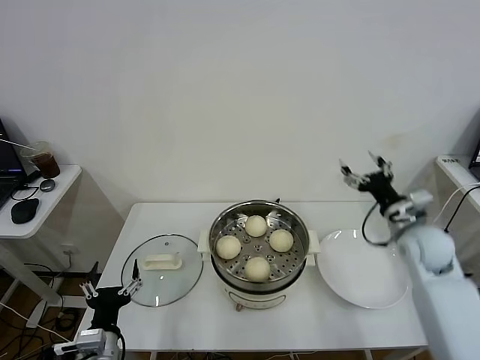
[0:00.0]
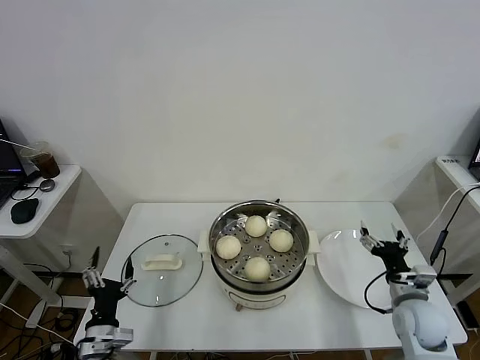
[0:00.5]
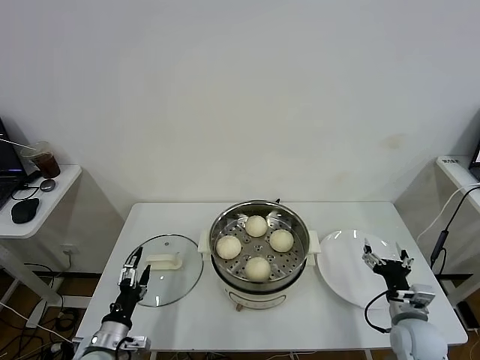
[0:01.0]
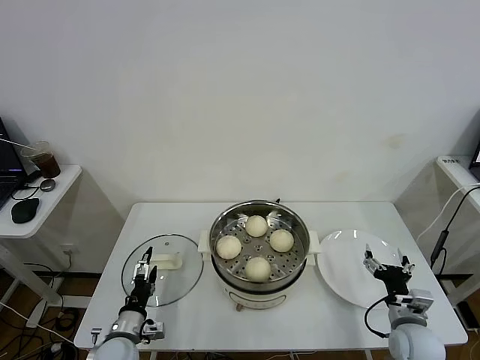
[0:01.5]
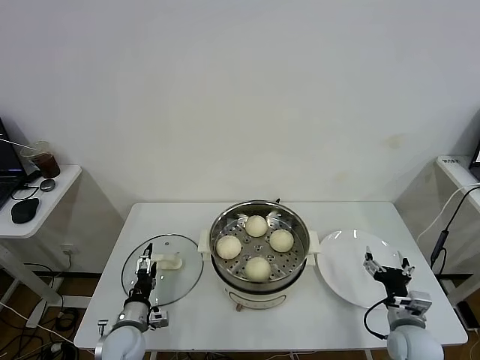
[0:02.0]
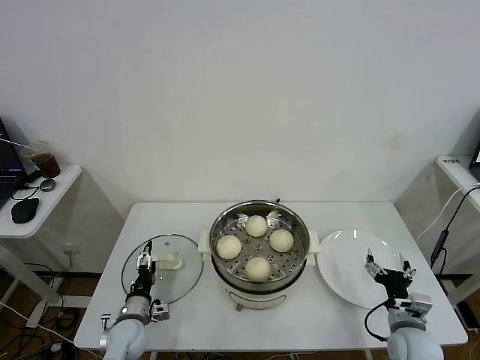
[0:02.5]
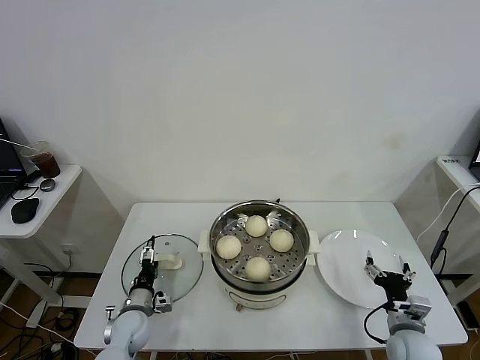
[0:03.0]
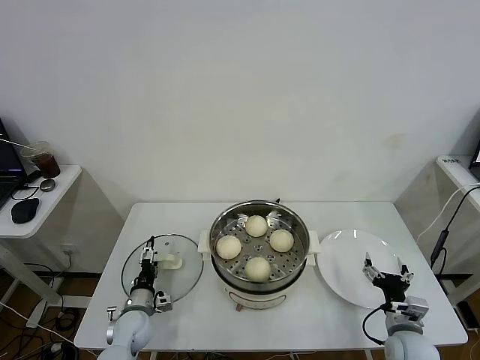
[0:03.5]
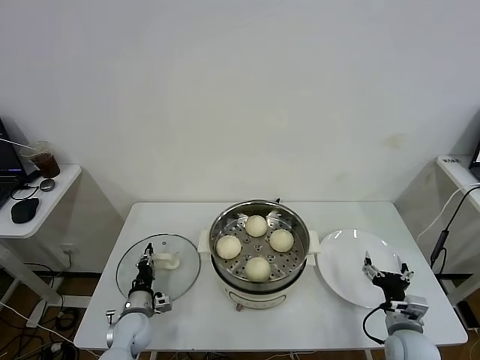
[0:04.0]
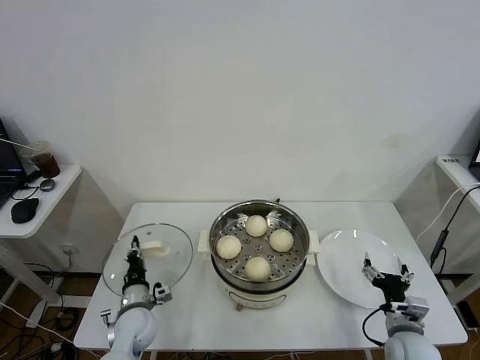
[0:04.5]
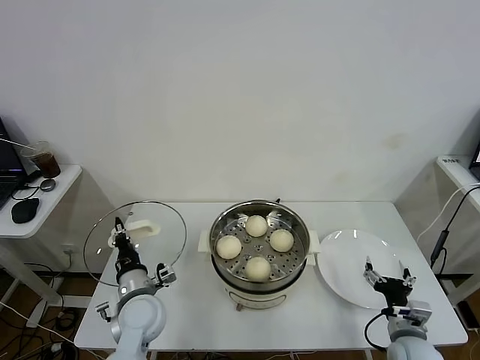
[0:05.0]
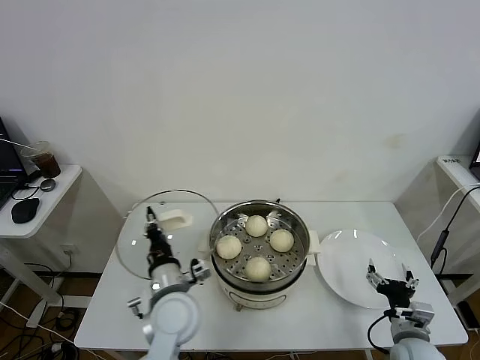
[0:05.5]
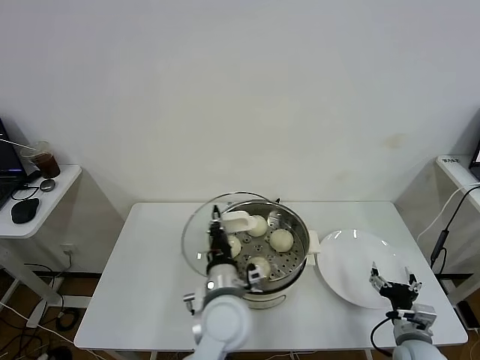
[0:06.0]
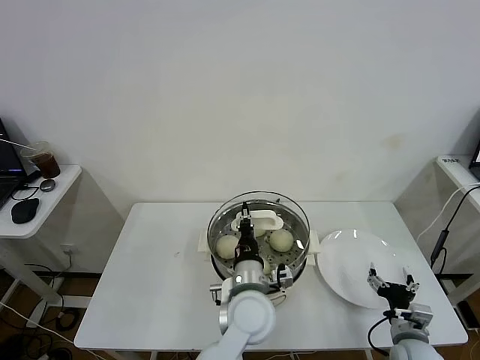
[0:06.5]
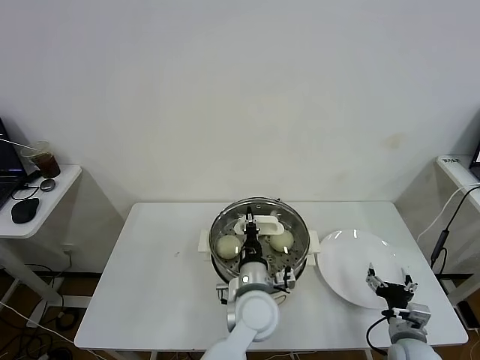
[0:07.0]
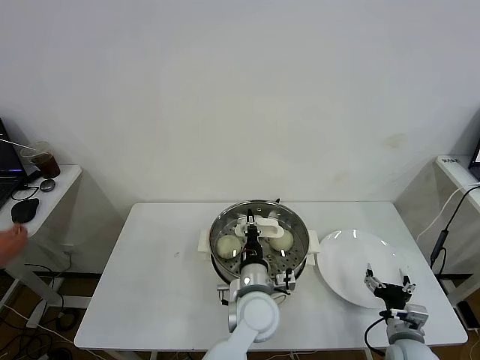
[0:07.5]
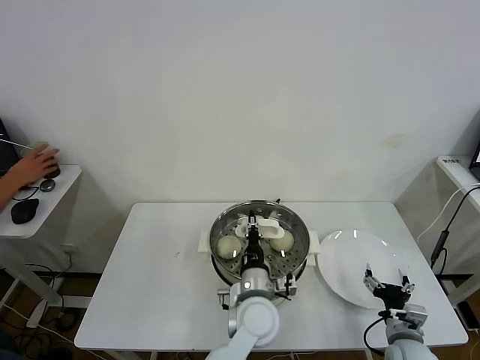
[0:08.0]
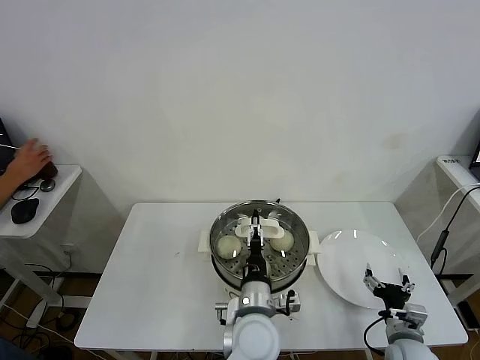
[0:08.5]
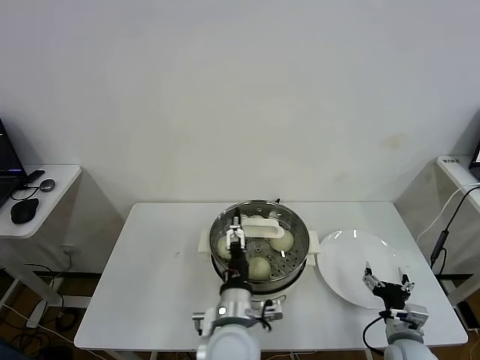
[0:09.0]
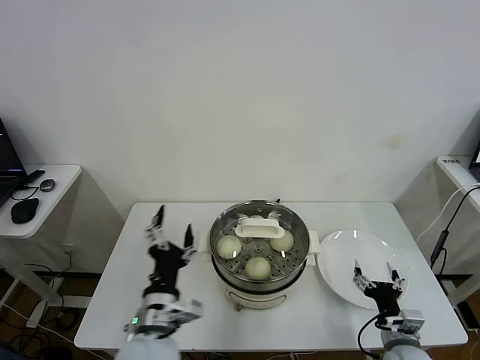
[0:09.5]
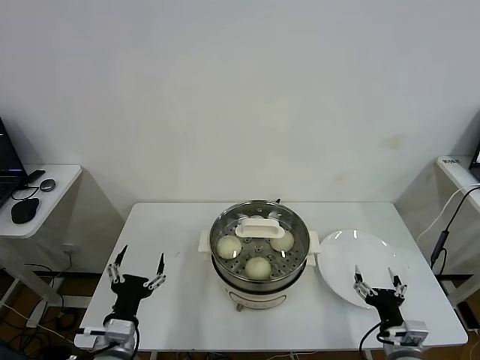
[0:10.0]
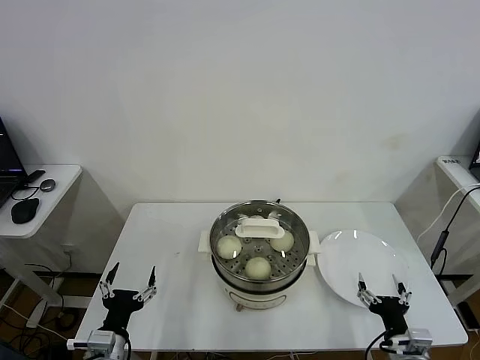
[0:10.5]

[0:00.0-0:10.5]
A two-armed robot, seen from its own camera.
Task of the whole recording: take steamed baozi put them in steamer.
Step, 0:00.0 to 0:04.0: Grasp the pot lid with left gripper.
Step, 0:04.5 to 0:08.5: Place the pot lid on the steamer with left gripper.
0:00.0 to 0:02.0: The right gripper heads backward and downward, covering roughly 20 cm. Meanwhile the left gripper heads downward and forward, covering roughly 15 cm.
0:02.0 to 0:04.0: The left gripper shifts by roughly 5 cm, and closes.
0:04.0 to 0:06.5: The left gripper goes approximately 35 cm to the right and upward.
0:06.5 to 0:08.5: The left gripper opens.
0:08.5 to 0:10.5: The left gripper goes roughly 30 cm to the left; the right gripper heads backward, covering roughly 5 cm.

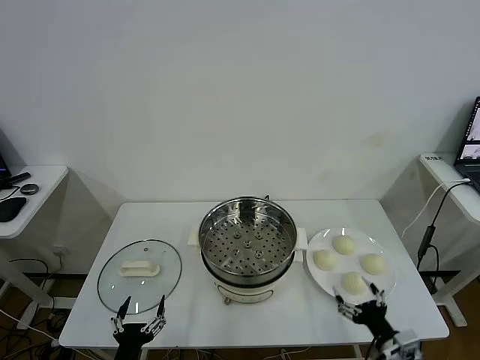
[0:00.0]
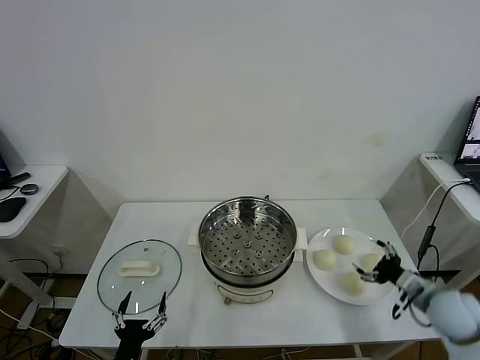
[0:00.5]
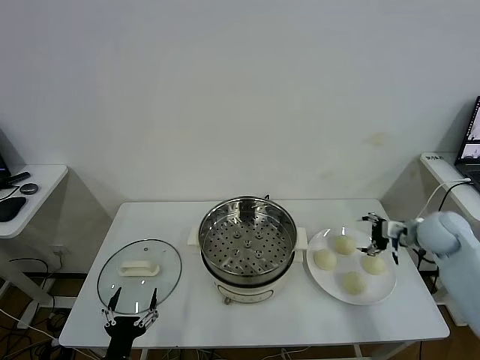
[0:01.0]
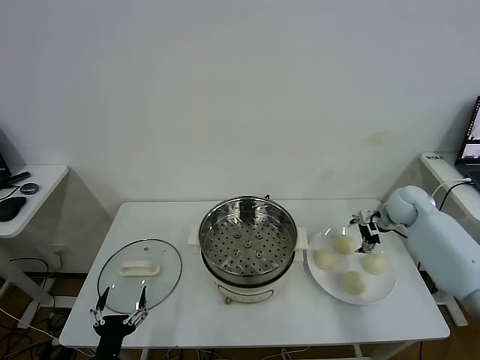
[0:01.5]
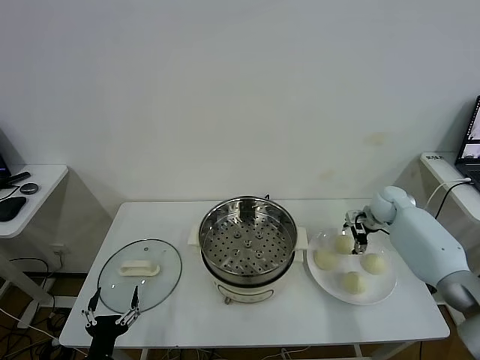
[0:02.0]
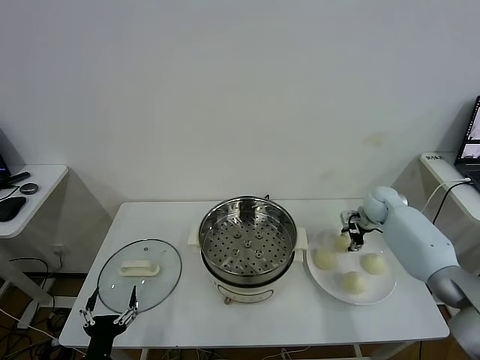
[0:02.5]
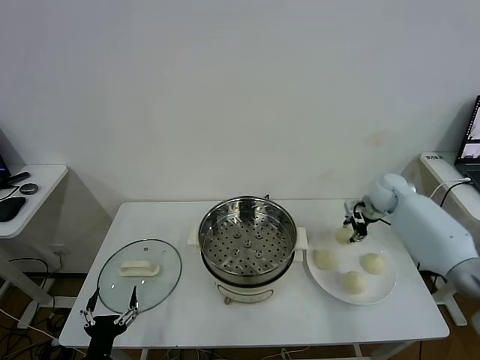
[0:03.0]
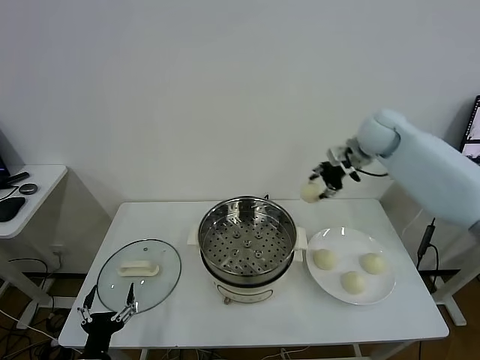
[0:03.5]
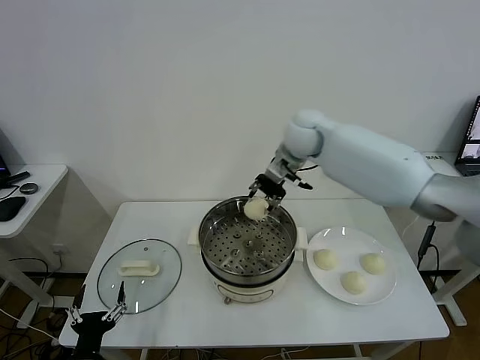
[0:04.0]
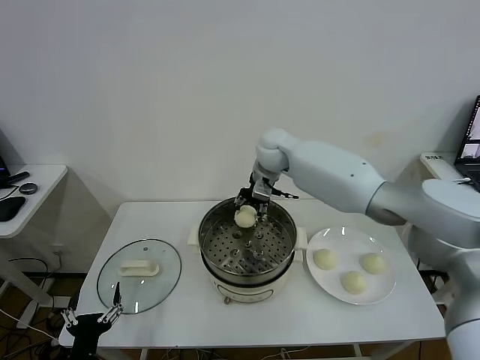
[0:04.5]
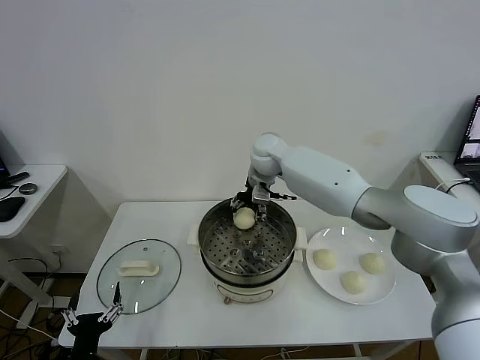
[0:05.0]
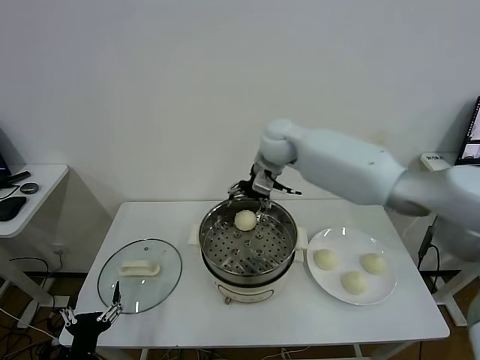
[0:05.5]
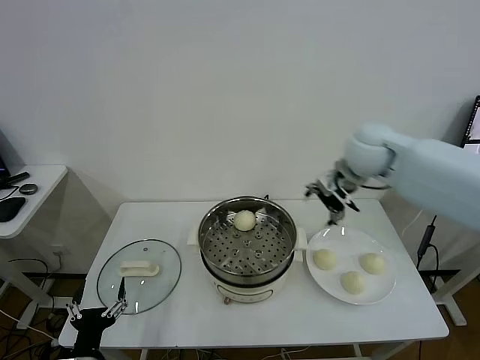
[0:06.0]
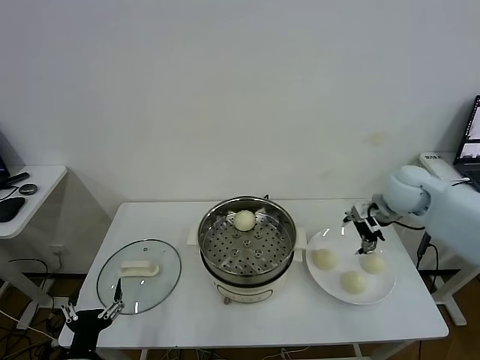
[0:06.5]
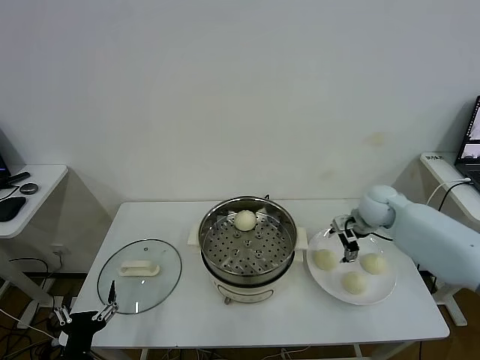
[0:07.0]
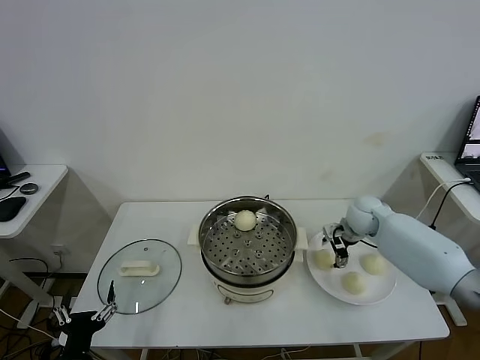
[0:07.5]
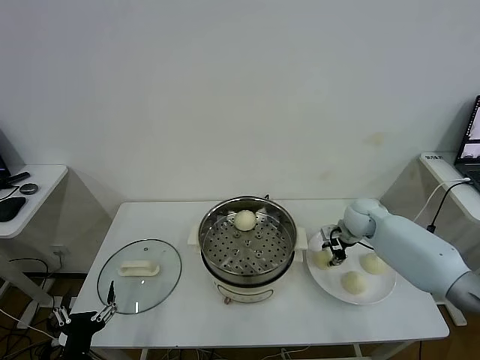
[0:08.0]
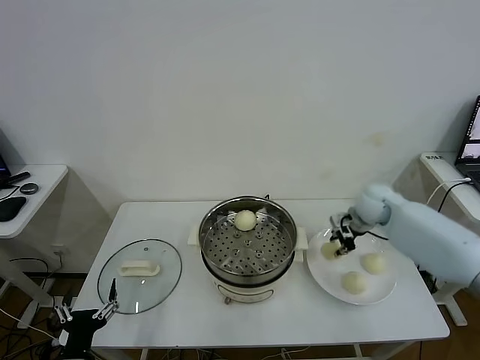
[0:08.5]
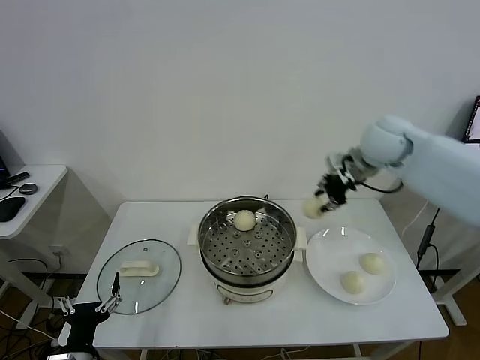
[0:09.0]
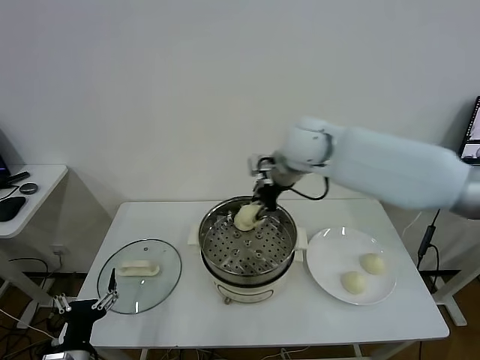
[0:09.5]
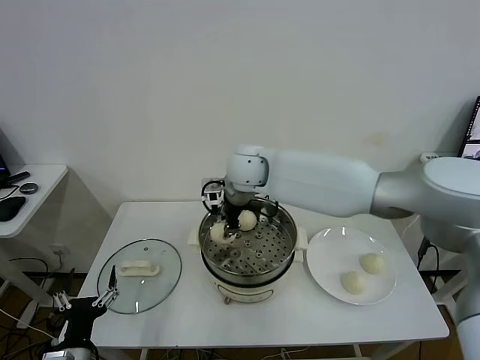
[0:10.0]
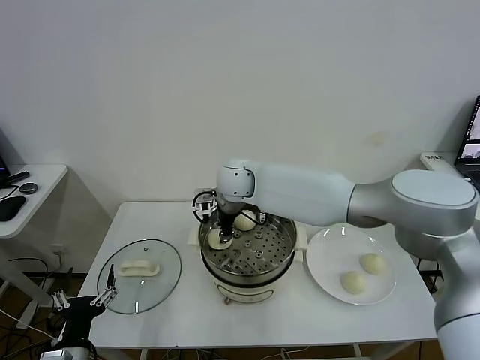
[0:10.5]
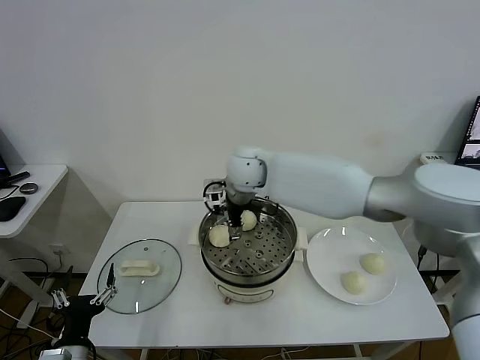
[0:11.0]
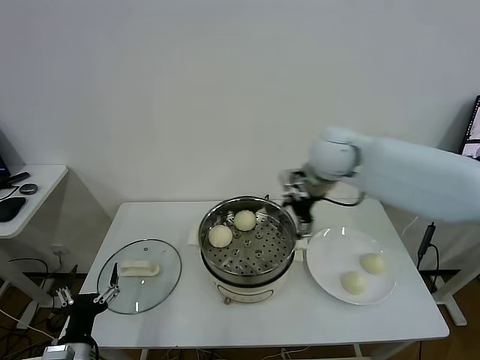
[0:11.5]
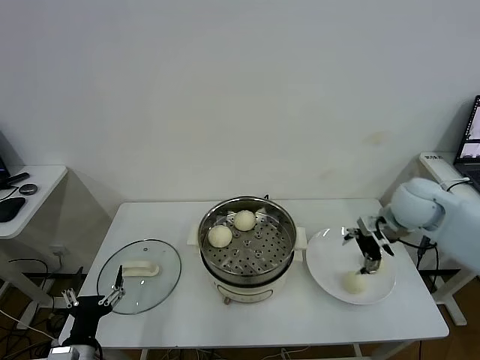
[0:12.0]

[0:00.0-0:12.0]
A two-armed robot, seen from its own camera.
Task of the whole recording: take steamed baozi put them in steamer.
Step, 0:00.0 to 0:02.5: Grasp the baozi in the plate with right gripper.
Step, 0:03.0 to 0:05.0: Place the baozi on the steamer with right gripper.
Step, 0:05.5 to 0:07.5: Grasp the baozi in the plate with right gripper.
Step, 0:08.0 to 0:11.0: Place the baozi on the steamer with right gripper.
0:02.0 to 0:04.0: The right gripper shifts approximately 35 cm to the left and upward, and closes its fingers.
0:04.0 to 0:06.0: The right gripper shifts approximately 20 cm to the right and backward, and opens.
0:06.0 to 0:08.0: The right gripper travels downward by about 20 cm, and closes its fingers.
0:08.0 to 0:10.0: The right gripper goes some 35 cm to the left and upward.
0:10.0 to 0:12.0: The right gripper is displaced to the right by about 35 cm, and opens.

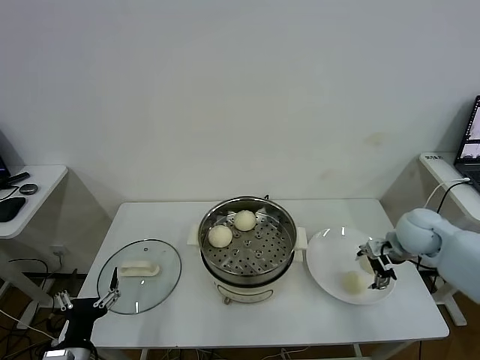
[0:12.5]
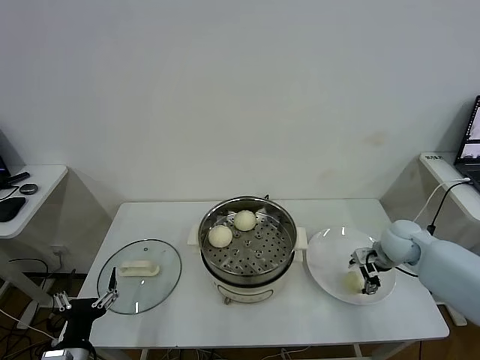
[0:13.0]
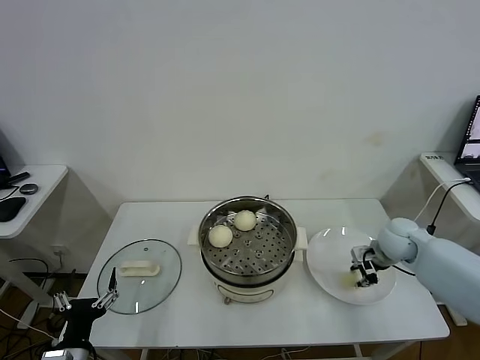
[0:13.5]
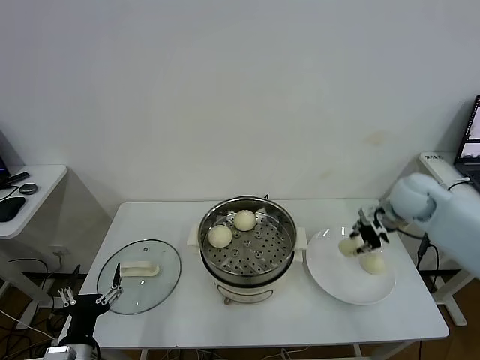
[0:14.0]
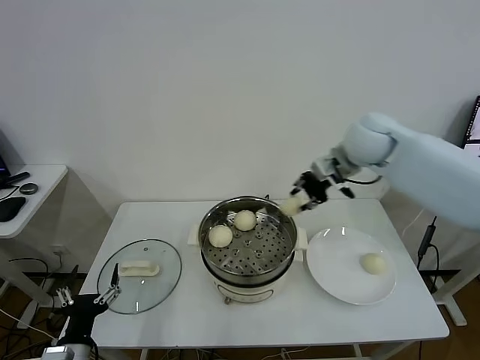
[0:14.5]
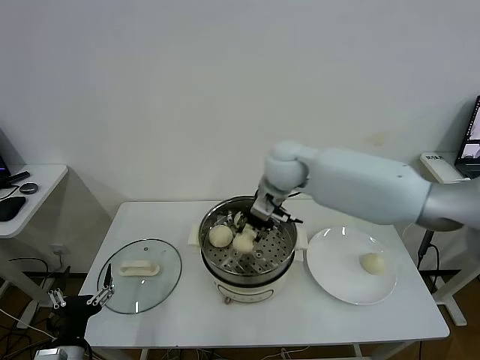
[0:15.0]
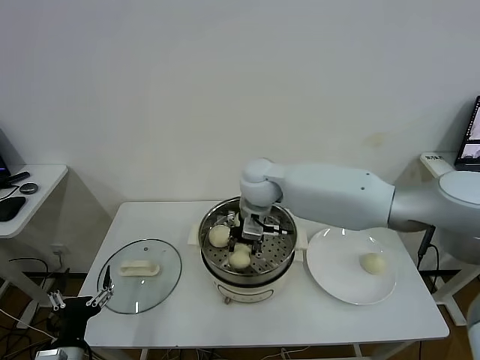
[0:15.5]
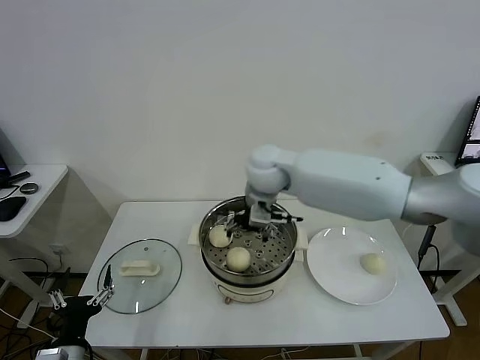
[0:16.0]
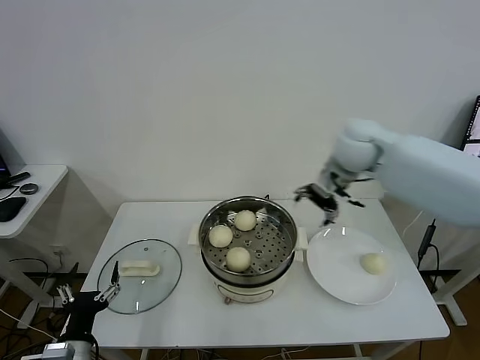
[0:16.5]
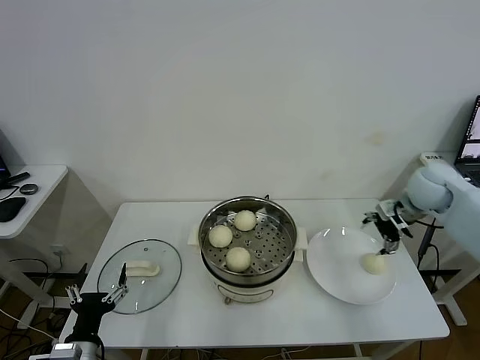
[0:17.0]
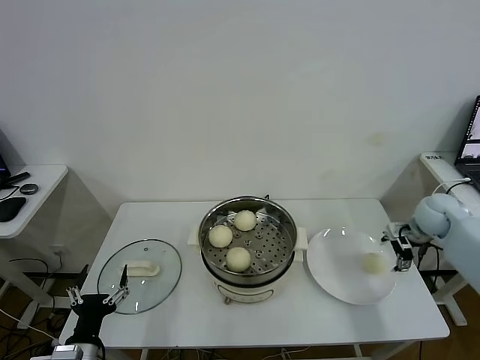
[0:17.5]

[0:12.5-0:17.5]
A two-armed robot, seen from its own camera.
Task of the whole recording: take steamed baozi put them in steamer.
Step, 0:13.5 to 0:15.5: Place the baozi on the steamer with right gripper.
0:12.5 to 0:15.0: The right gripper heads to the left and upward, covering about 35 cm, and closes up.
0:15.0 to 0:17.5: The right gripper heads to the right, covering approximately 40 cm, and opens up.
